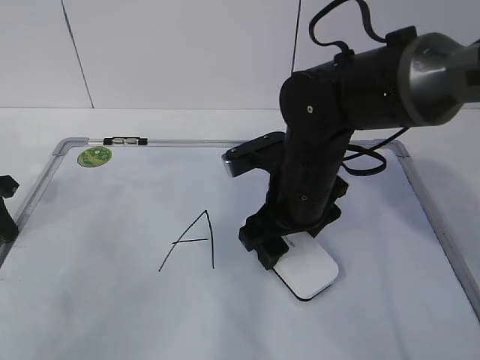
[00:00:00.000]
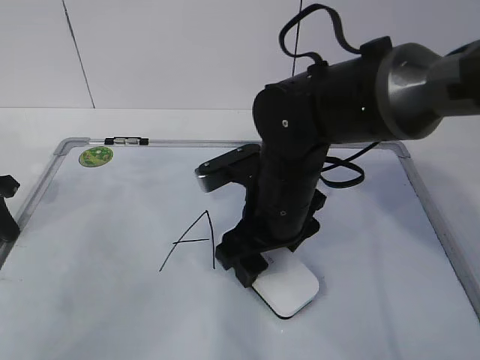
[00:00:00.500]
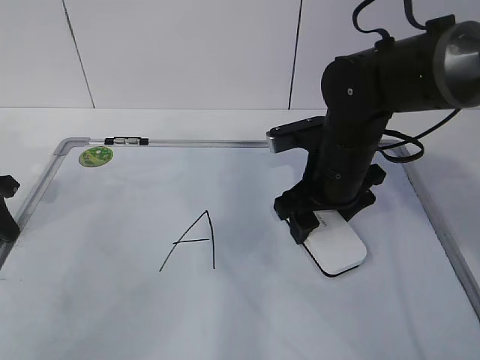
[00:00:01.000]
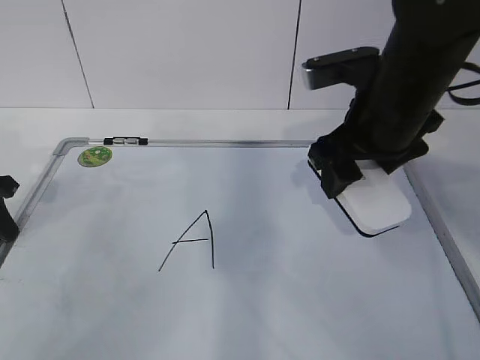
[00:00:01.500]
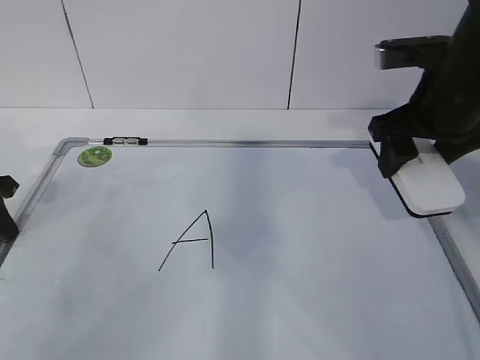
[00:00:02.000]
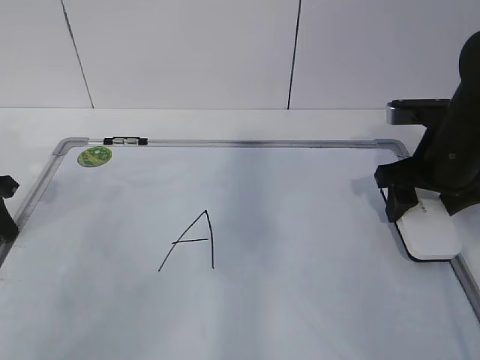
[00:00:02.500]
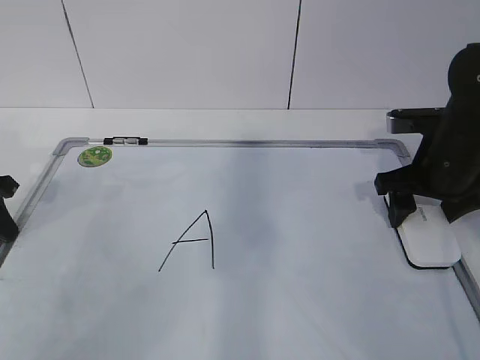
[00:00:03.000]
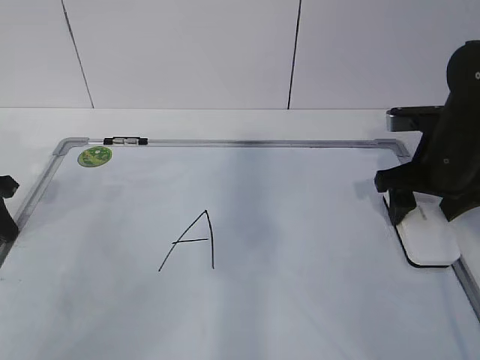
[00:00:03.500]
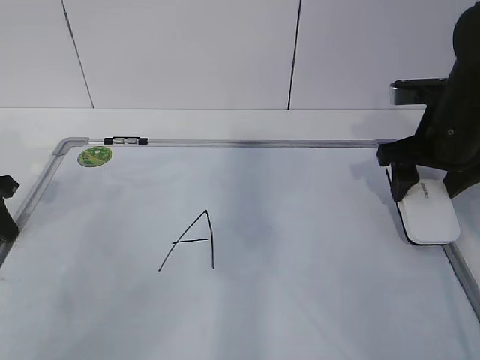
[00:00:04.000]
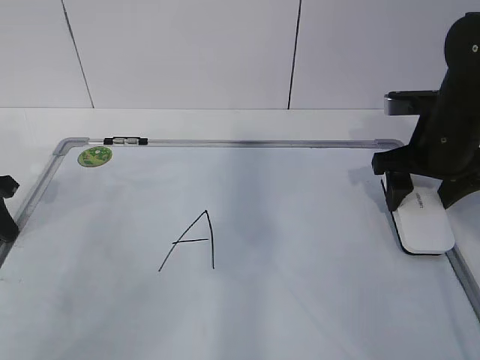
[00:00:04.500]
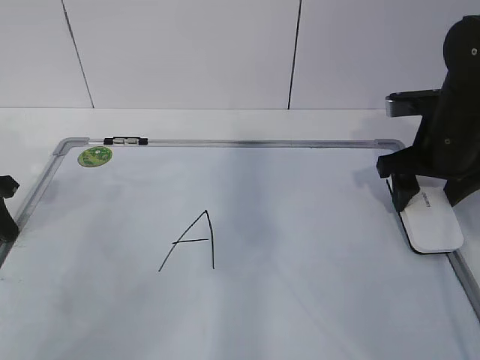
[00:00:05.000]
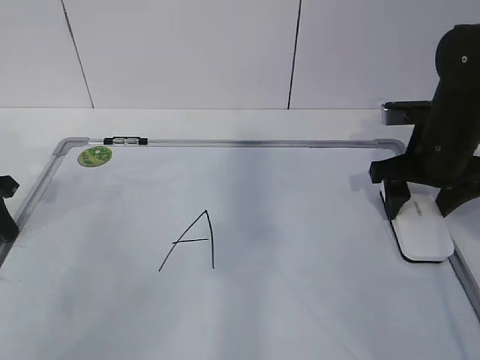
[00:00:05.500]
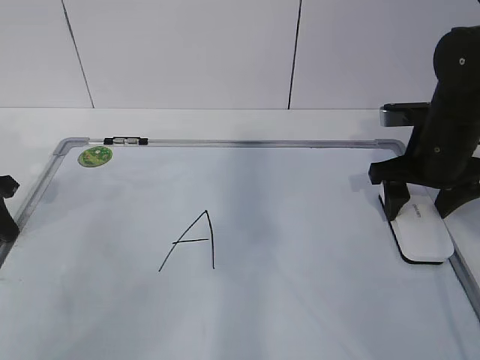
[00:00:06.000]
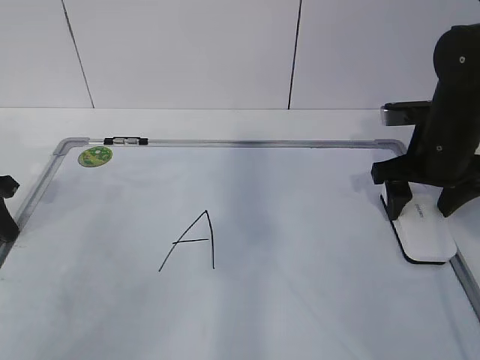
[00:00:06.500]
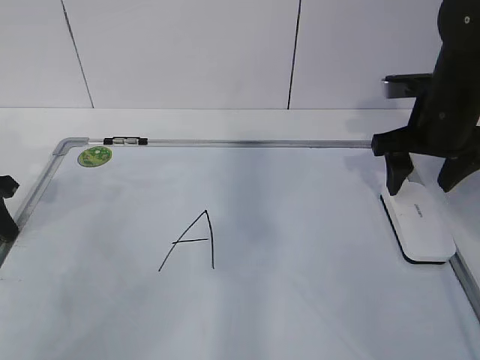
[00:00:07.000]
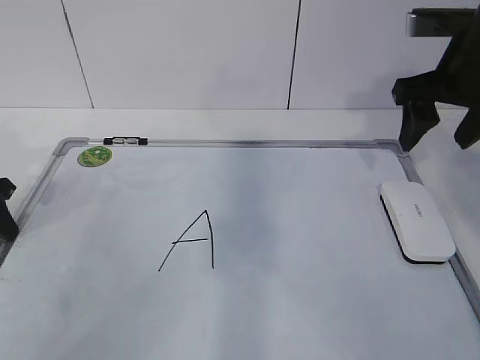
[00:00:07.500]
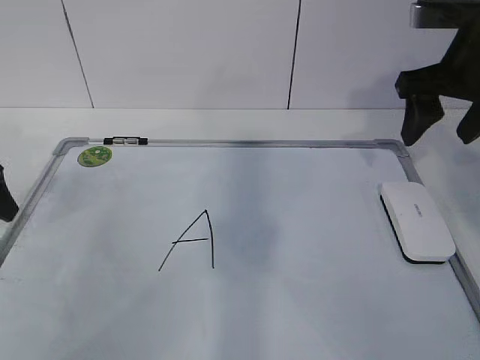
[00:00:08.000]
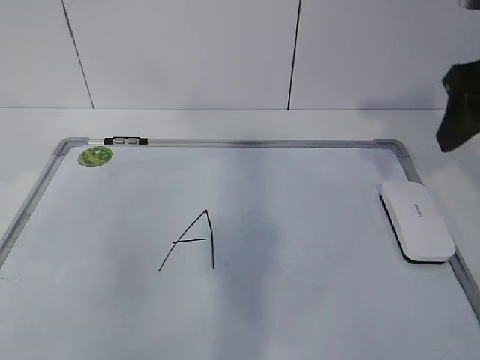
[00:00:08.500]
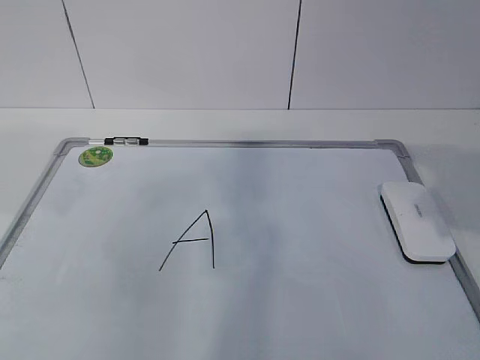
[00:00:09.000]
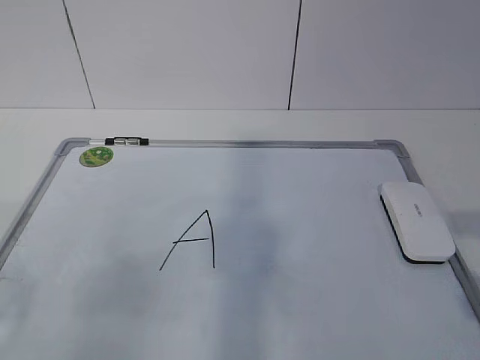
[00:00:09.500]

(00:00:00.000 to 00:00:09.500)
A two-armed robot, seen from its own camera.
Task of the whole recording: pick up the eraser on the blackboard and erase the letter "a".
00:00:00.000 - 00:00:02.000: The right gripper shifts approximately 15 cm to the right and upward.
00:00:02.000 - 00:00:04.000: The right gripper shifts approximately 5 cm downward.
00:00:04.000 - 00:00:05.500: There are only small adjustments of the grippers.
00:00:05.500 - 00:00:07.500: The right gripper is displaced upward by about 10 cm.
00:00:07.500 - 00:00:09.500: The left gripper moves backward and upward, about 30 cm, and opens up; the right gripper is displaced backward by roughly 30 cm.
